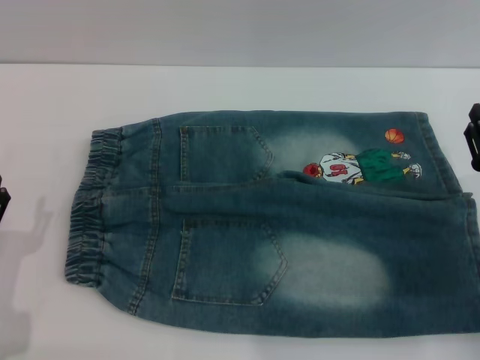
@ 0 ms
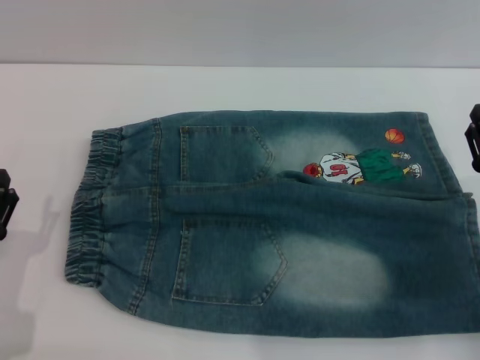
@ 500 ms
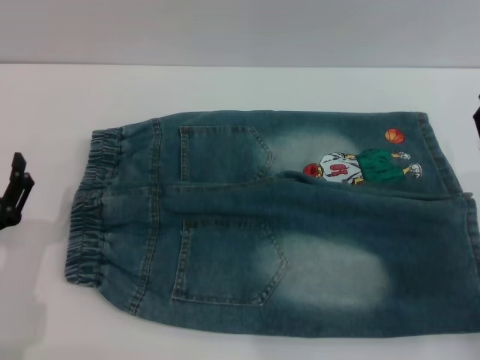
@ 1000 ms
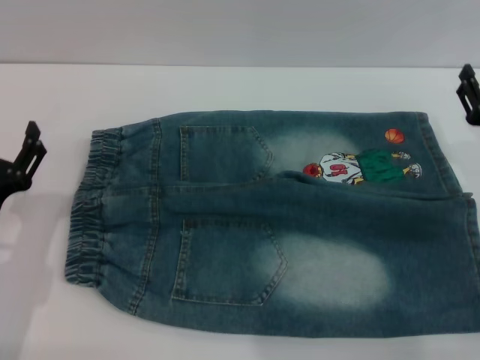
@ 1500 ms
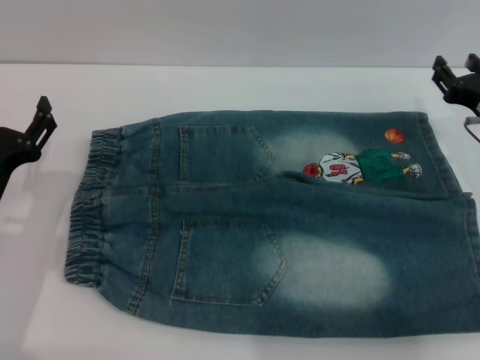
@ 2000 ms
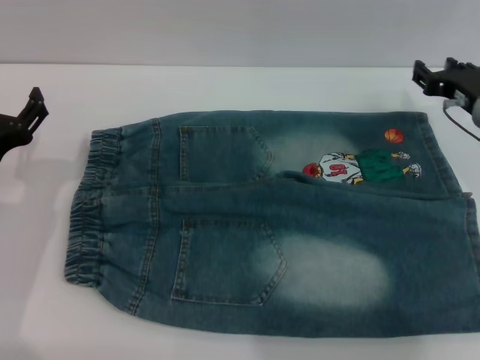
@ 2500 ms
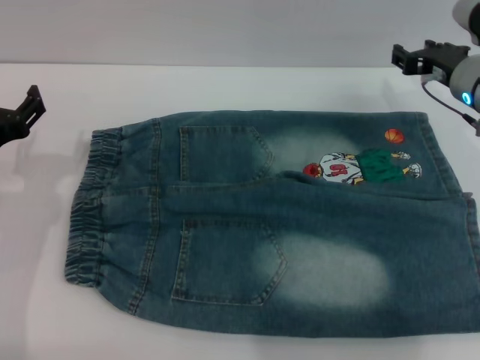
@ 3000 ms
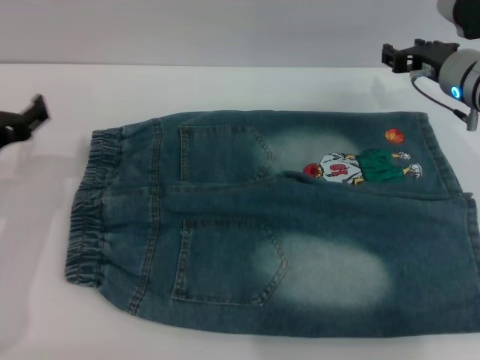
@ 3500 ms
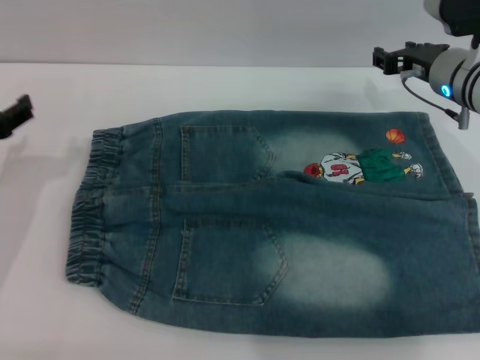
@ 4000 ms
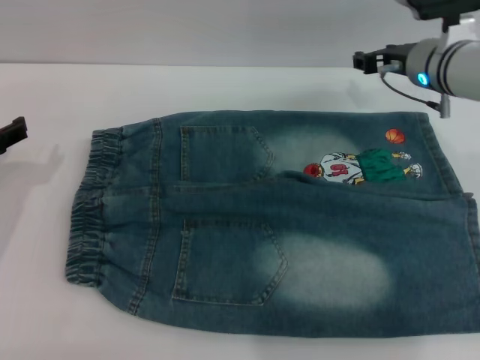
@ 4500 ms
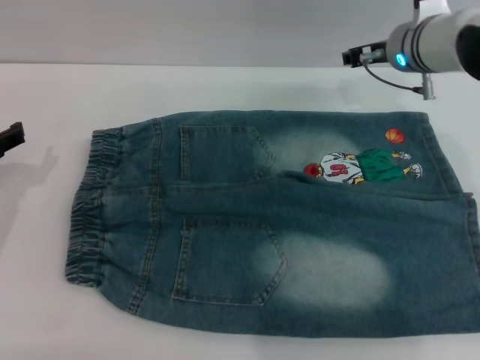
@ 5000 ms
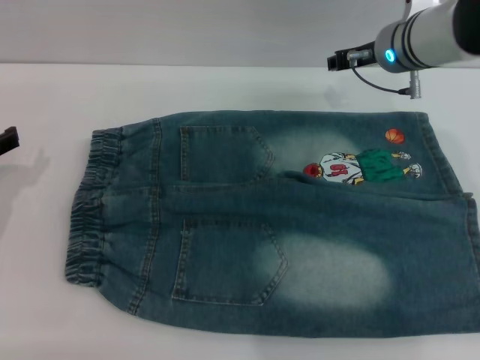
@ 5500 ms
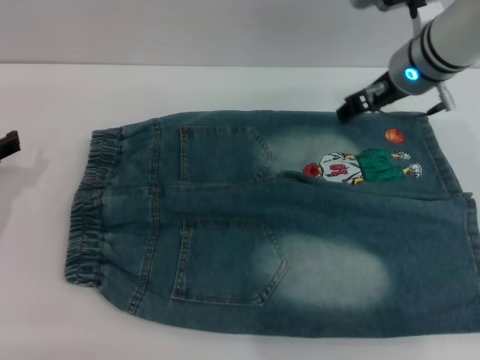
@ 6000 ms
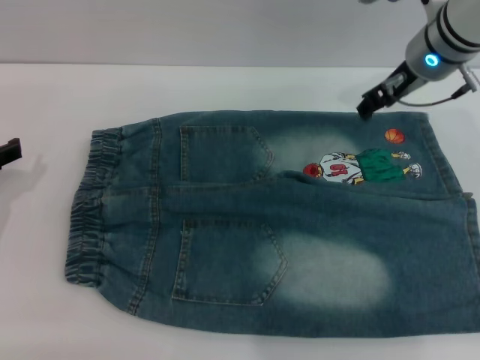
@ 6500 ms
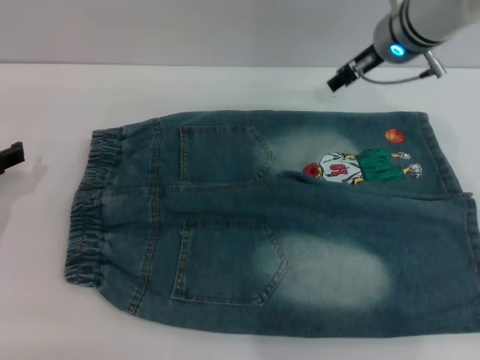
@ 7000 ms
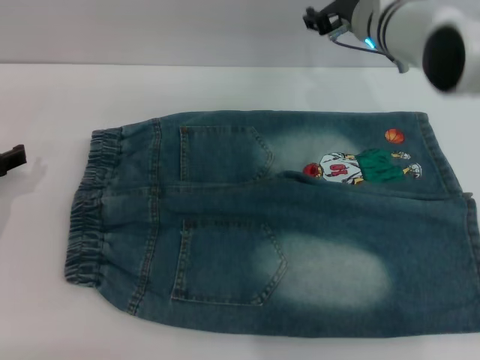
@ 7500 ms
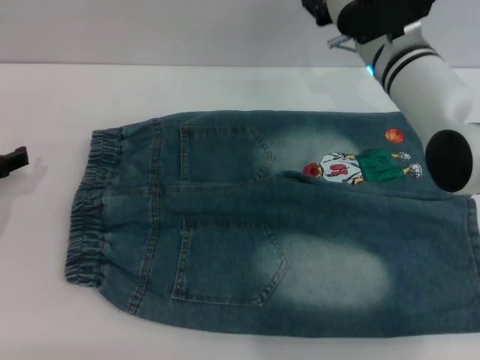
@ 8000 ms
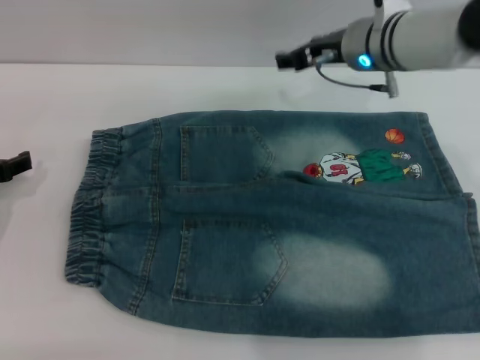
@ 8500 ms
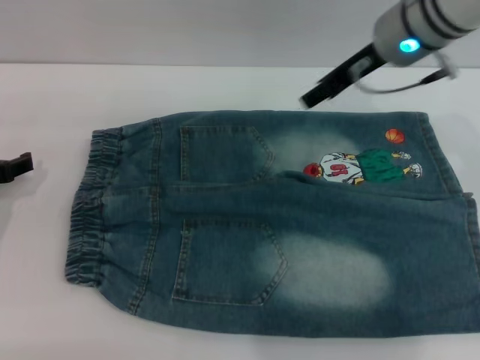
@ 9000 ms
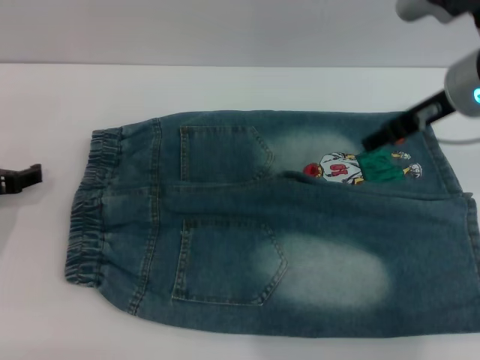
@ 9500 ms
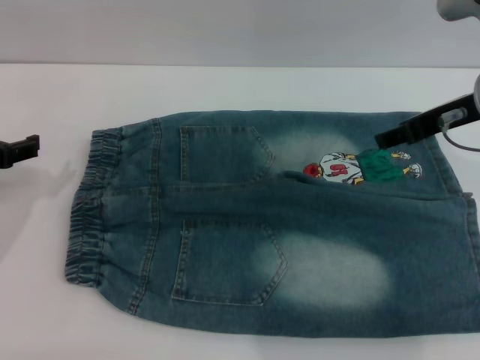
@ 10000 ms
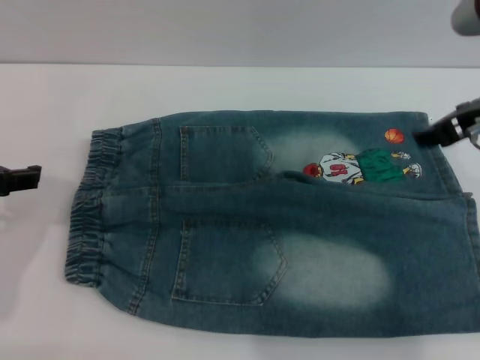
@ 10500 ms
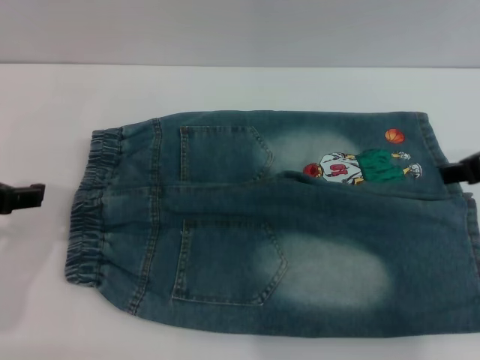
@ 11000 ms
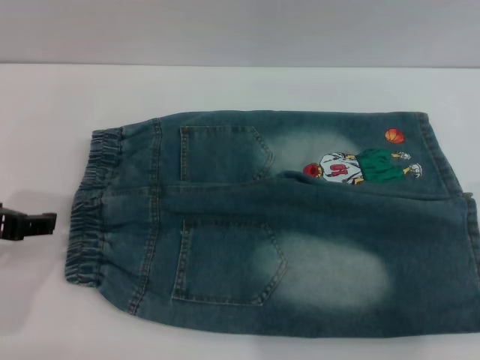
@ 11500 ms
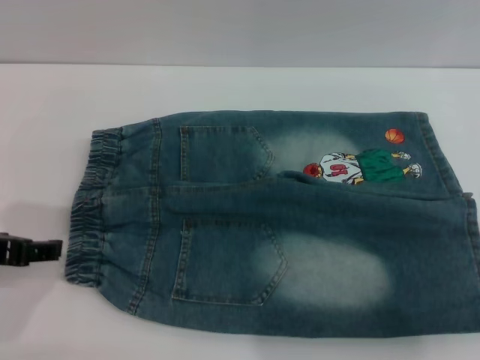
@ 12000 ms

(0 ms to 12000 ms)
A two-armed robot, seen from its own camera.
0 ms - 2000 ms: The two grippers go roughly 10 cm forward.
2000 ms - 4000 ms: The right gripper shifts some 10 cm forward and to the left. Meanwhile the left gripper moves upward, approximately 5 cm.
4000 ms - 6000 ms: The right gripper travels to the left by about 5 cm.
8000 ms - 10000 ms: The right gripper moves to the right, backward and upward, some 15 cm; the left gripper travels upward by approximately 5 cm.
10000 ms - 12000 ms: The right gripper heads backward and to the right, covering some 15 cm. Meanwhile the left gripper is displaced backward by roughly 10 cm.

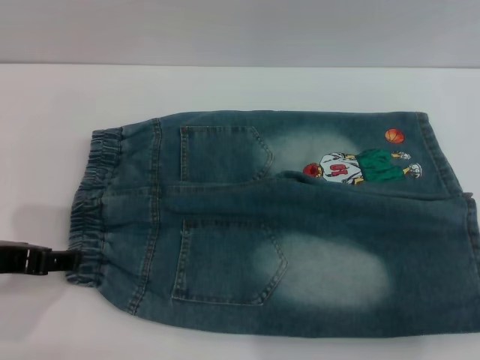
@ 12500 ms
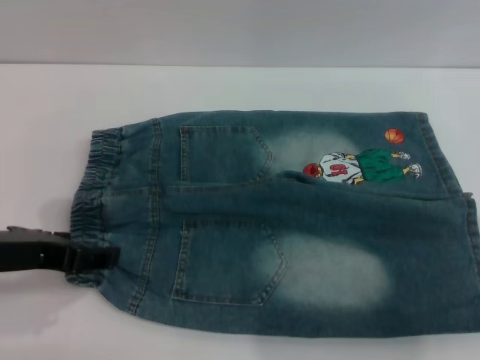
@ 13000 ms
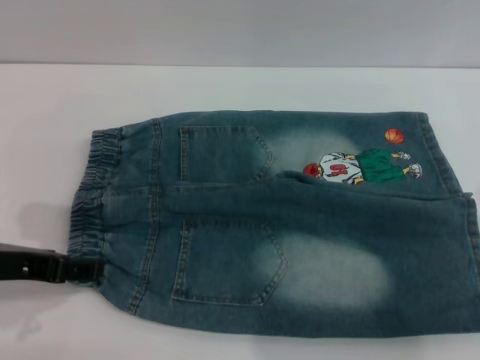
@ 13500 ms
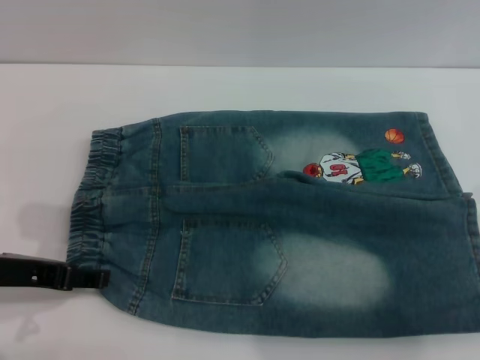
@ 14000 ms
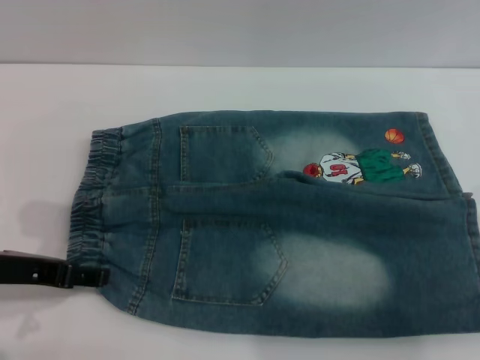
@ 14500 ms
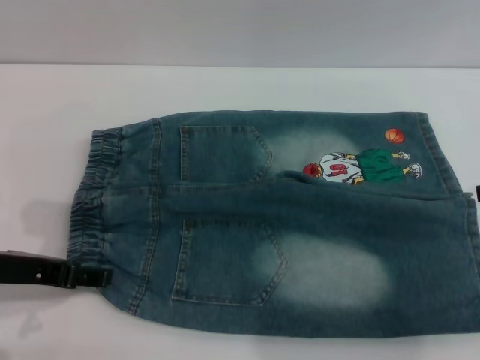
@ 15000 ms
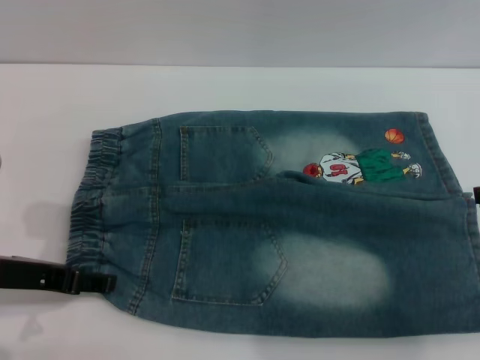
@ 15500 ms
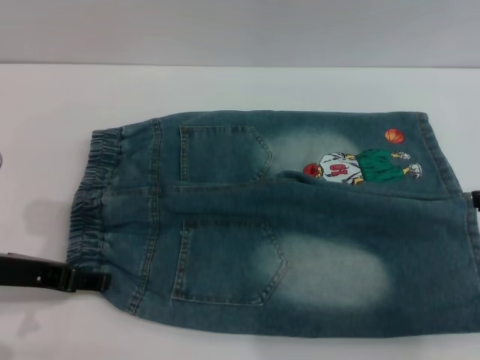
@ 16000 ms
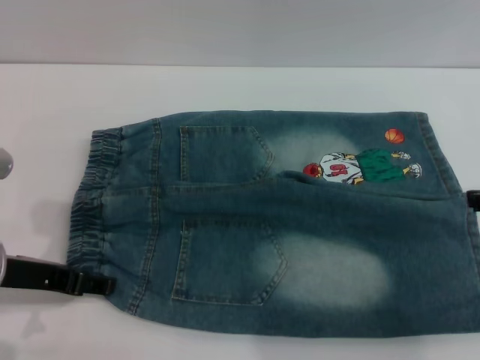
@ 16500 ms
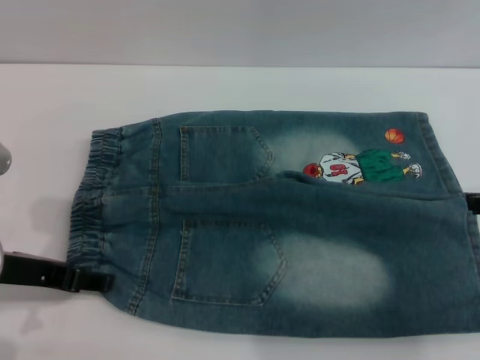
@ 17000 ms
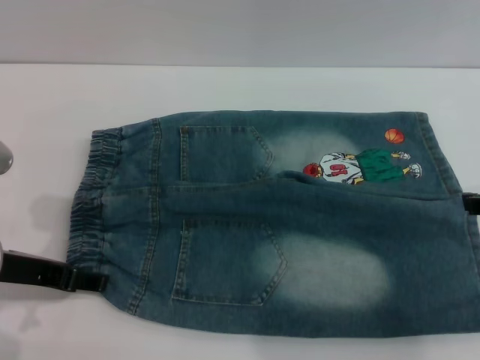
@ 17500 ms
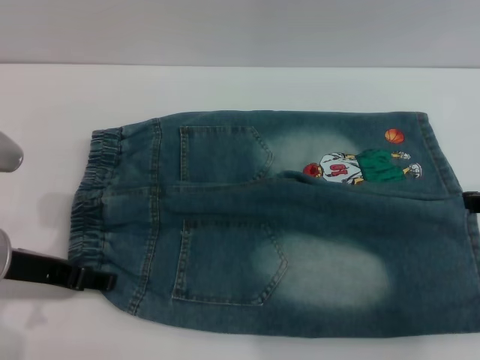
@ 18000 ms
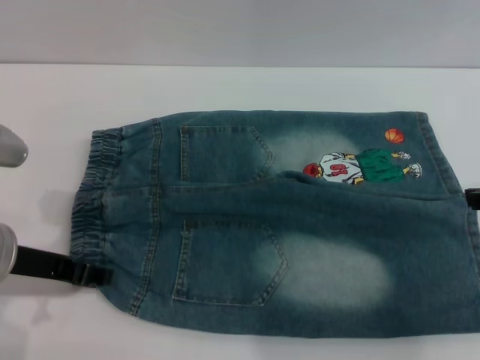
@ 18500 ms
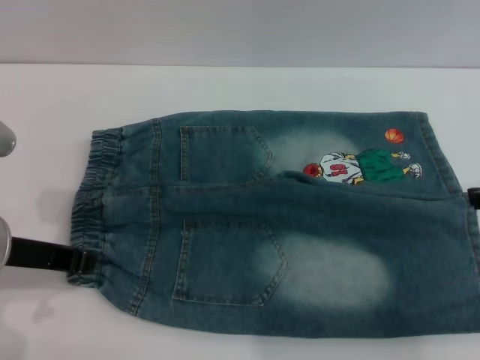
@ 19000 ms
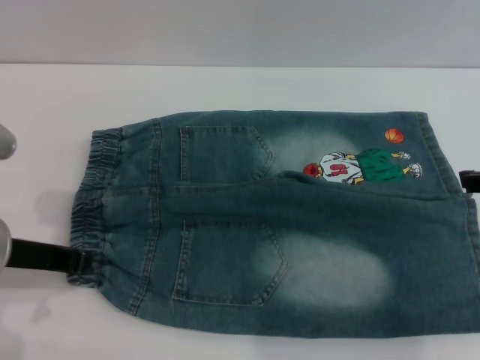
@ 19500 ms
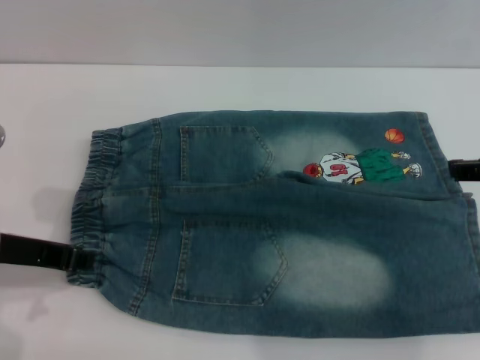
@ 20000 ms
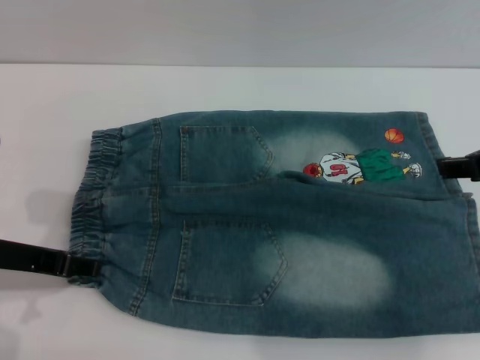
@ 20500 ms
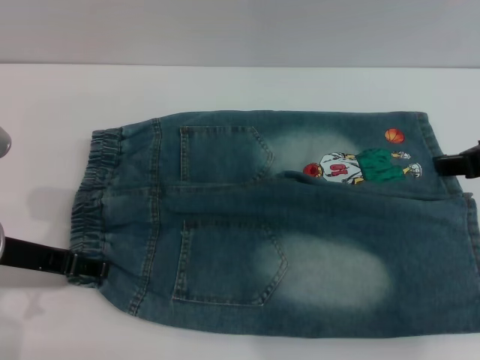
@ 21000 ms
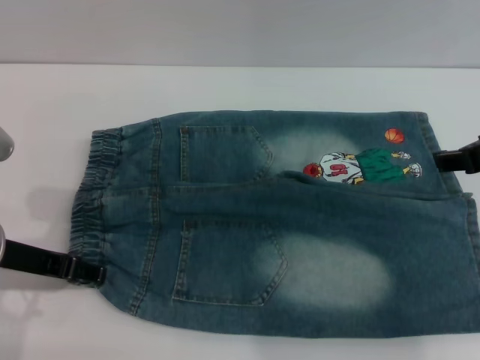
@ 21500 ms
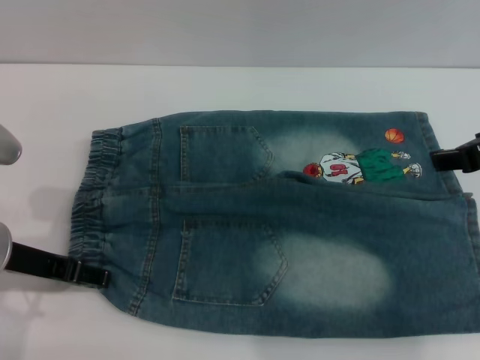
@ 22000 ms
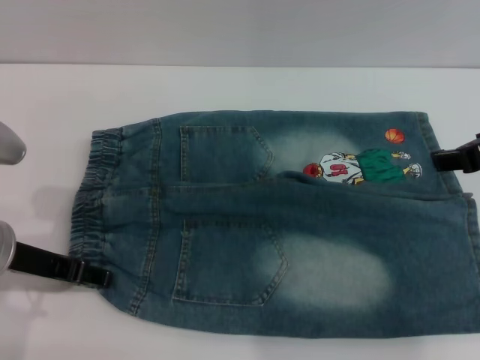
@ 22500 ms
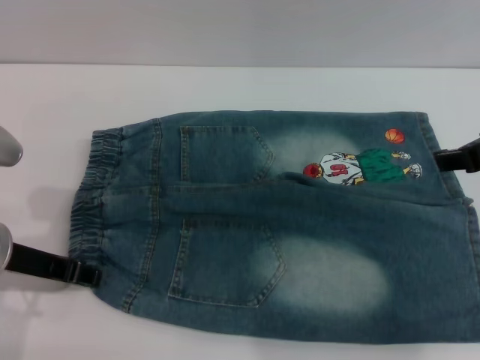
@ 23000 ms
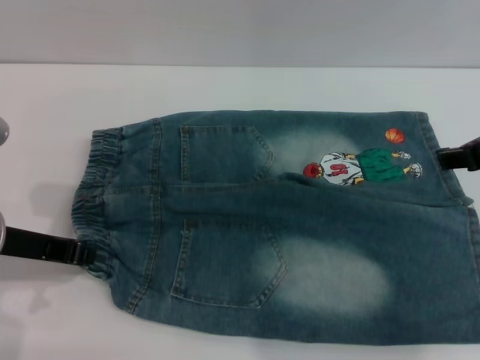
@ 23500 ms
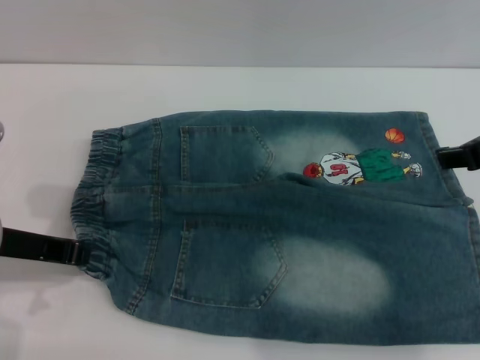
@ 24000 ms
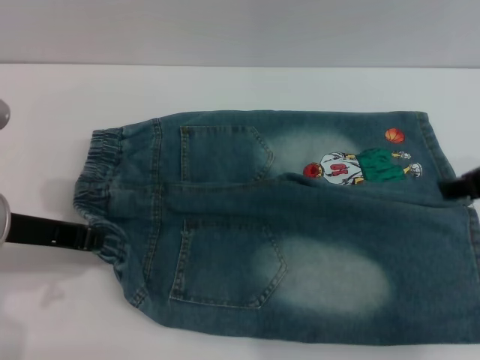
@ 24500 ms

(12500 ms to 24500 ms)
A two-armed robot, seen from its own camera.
12500 ms - 14500 ms: The grippers make only small movements.
14500 ms - 16500 ms: The two grippers keep their place.
16500 ms - 18500 ms: The grippers move only a little.
18500 ms - 20500 ms: The left gripper closes and opens again.
20500 ms - 22500 ms: There are only small adjustments of the grippers.
22500 ms - 24500 ms: The left gripper closes its fingers.

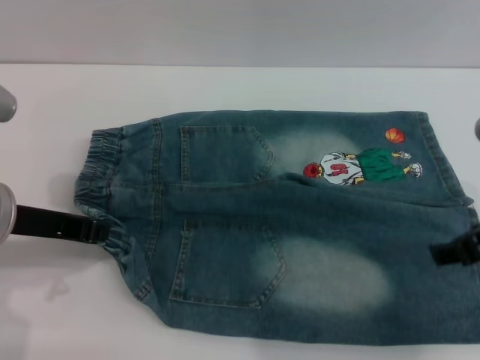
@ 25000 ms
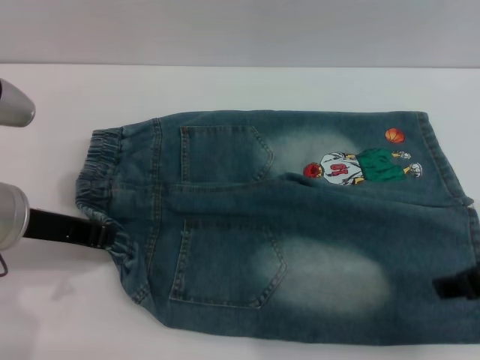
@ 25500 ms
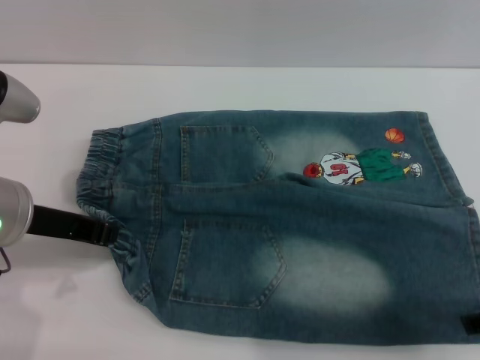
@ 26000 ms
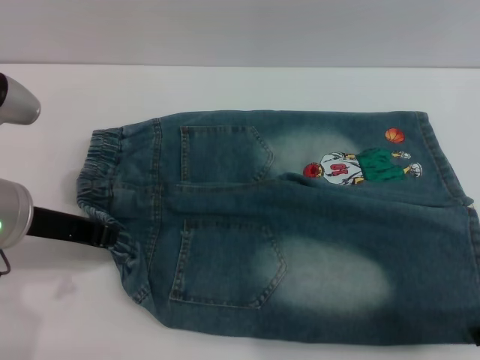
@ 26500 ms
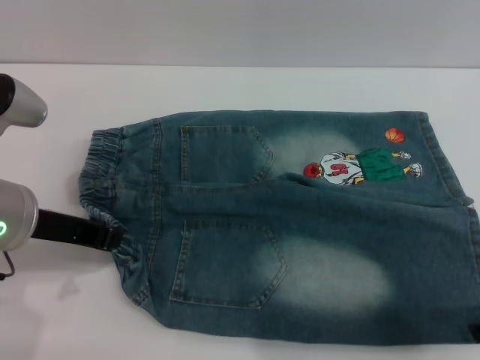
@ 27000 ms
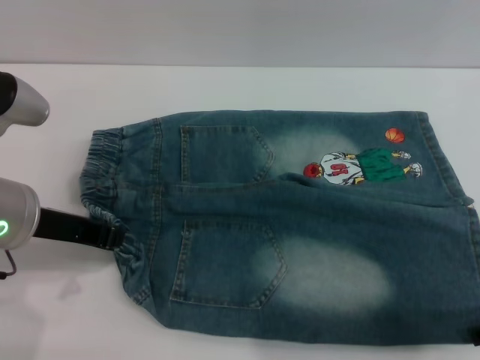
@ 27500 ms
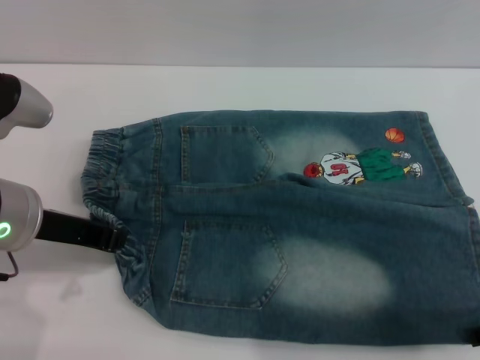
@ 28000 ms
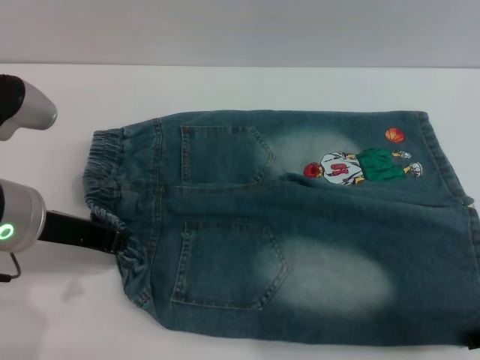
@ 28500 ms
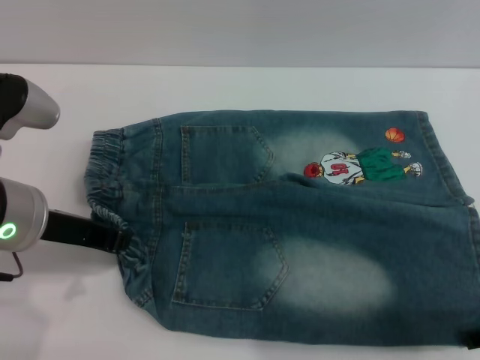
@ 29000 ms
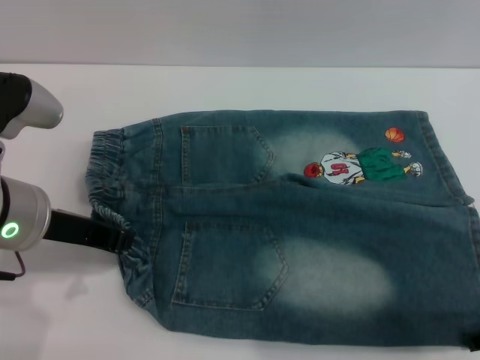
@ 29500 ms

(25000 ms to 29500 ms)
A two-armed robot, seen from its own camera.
25000 ms - 27000 ms: The right gripper shifts by roughly 5 cm.
27000 ms - 29500 ms: The grippers stay close to where they were, moving slightly.
